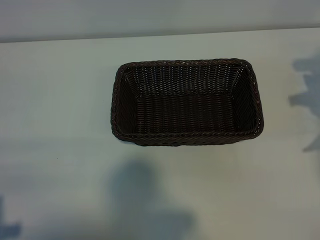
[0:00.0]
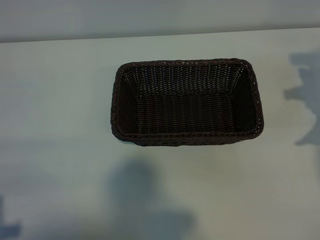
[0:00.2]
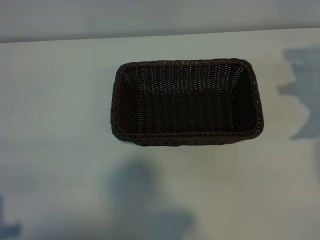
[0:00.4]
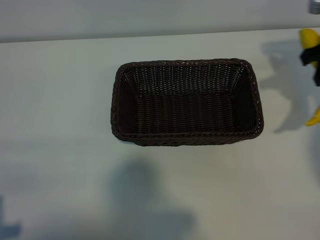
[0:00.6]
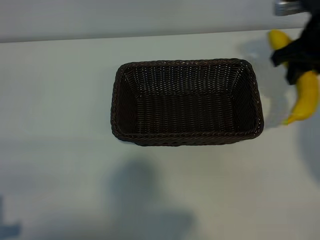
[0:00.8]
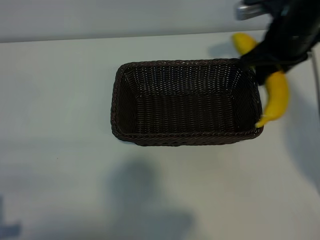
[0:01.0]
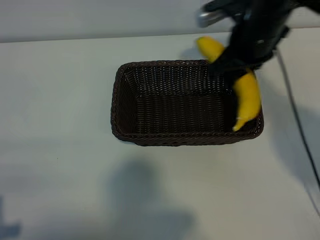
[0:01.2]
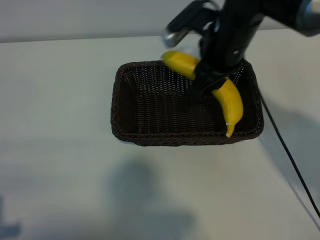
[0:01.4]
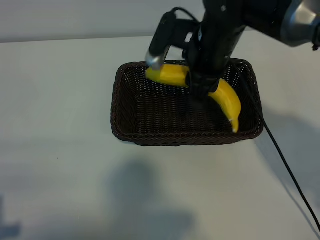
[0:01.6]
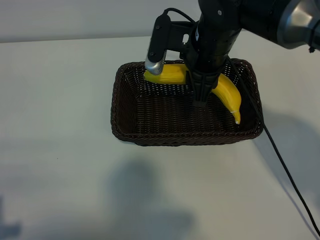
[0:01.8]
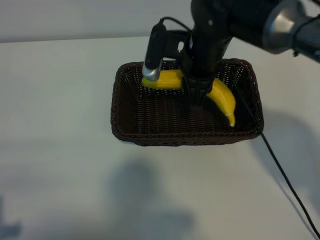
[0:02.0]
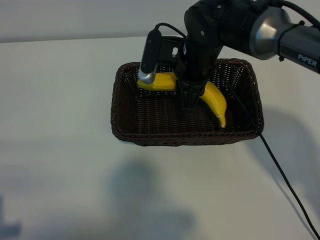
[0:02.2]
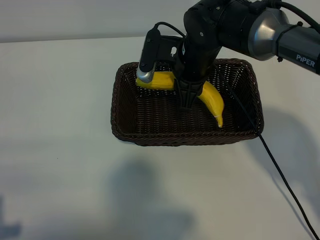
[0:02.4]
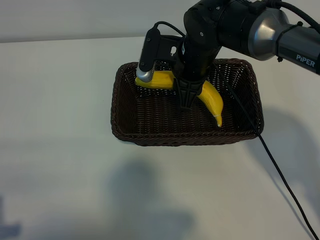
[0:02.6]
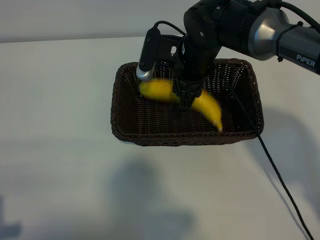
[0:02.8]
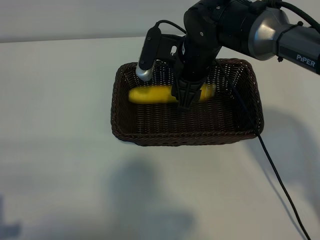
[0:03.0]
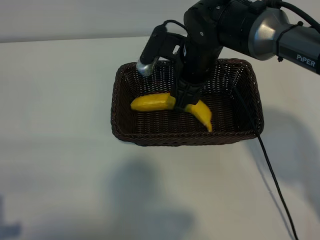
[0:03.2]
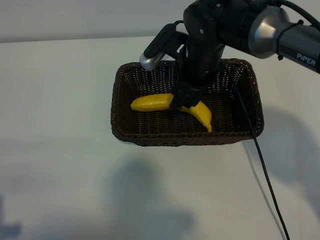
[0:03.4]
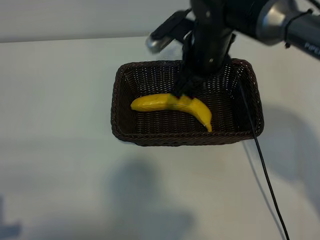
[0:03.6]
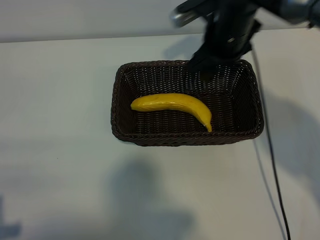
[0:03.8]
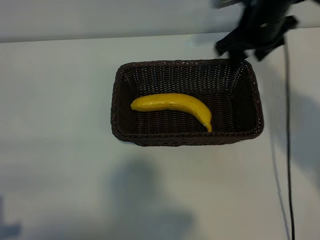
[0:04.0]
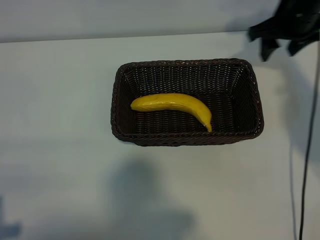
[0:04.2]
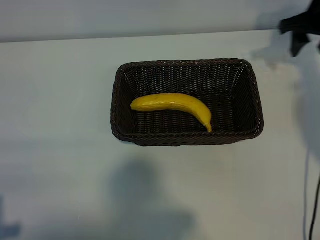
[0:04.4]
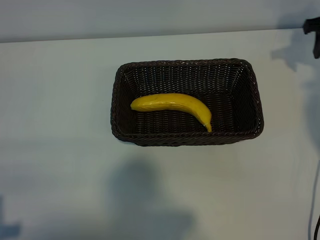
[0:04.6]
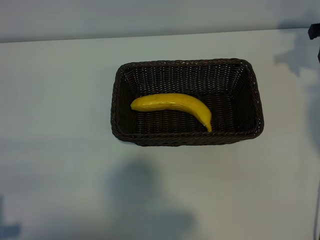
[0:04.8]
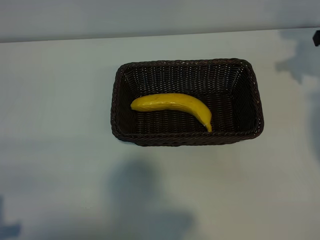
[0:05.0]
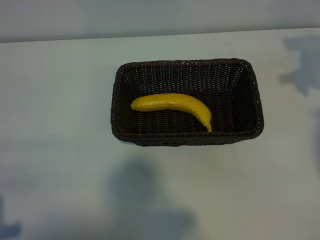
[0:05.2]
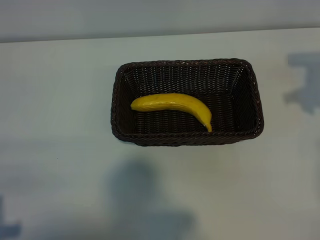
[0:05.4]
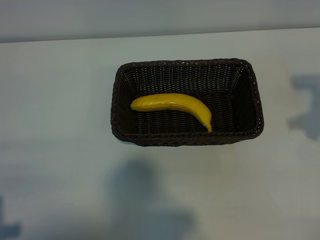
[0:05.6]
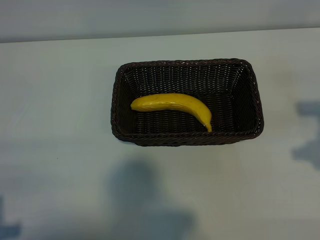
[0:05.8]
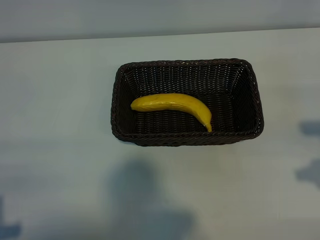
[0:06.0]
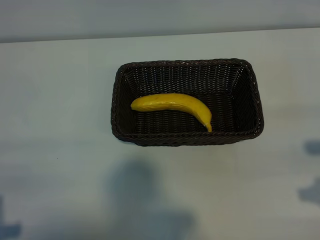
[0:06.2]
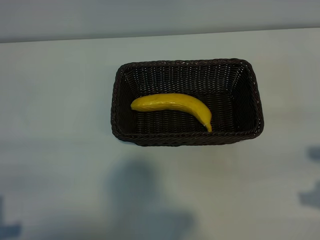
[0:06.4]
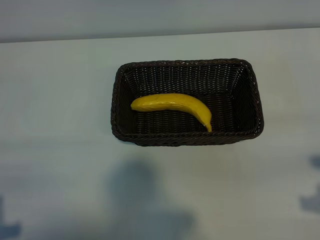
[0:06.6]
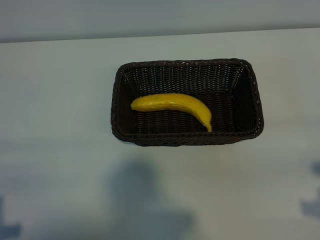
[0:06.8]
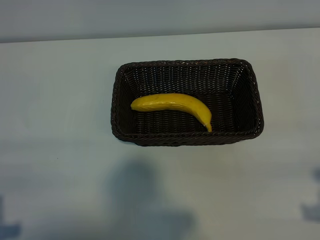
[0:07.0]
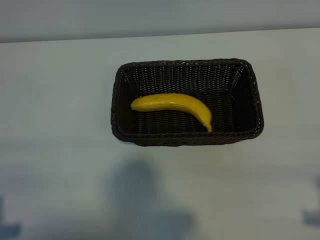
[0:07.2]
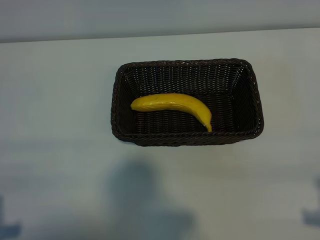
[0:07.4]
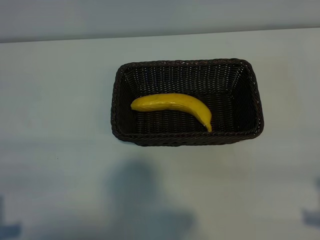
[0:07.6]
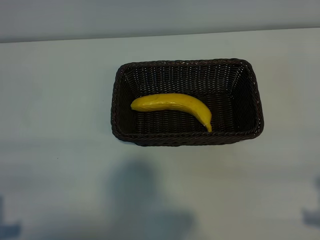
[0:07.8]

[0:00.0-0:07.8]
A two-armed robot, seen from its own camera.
Task of the whole recording: pick up the banana and put it into the basket.
Step, 0:00.0 to 0:03.0: Place the banana in the basket with right gripper.
